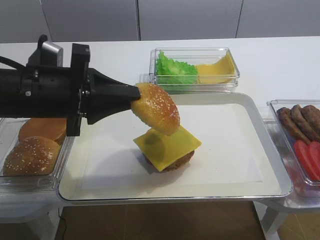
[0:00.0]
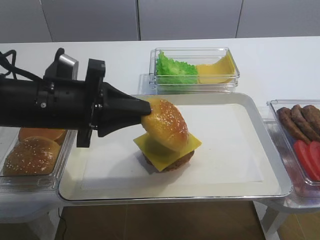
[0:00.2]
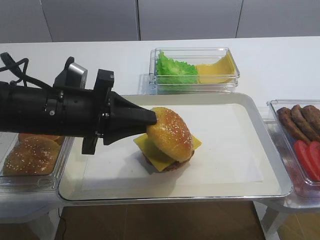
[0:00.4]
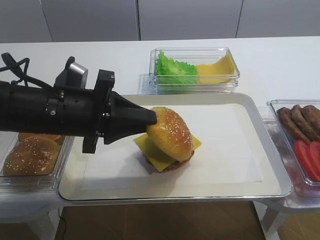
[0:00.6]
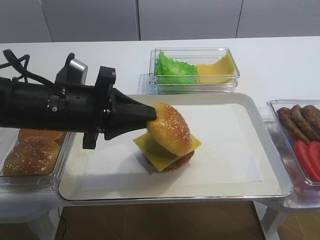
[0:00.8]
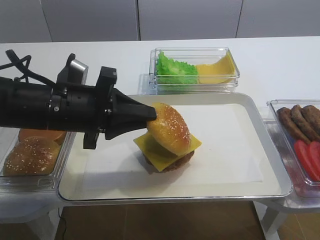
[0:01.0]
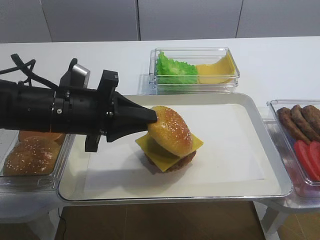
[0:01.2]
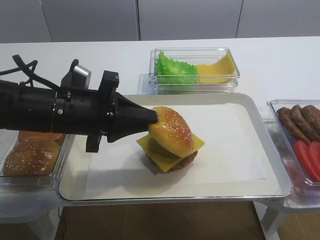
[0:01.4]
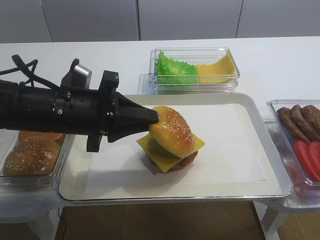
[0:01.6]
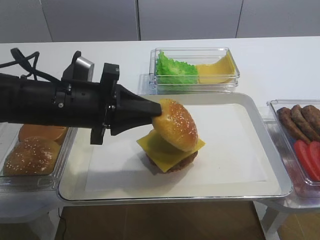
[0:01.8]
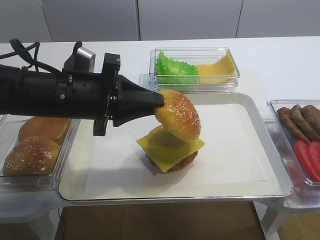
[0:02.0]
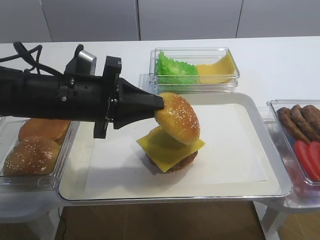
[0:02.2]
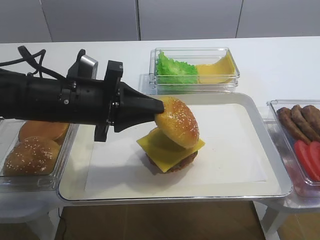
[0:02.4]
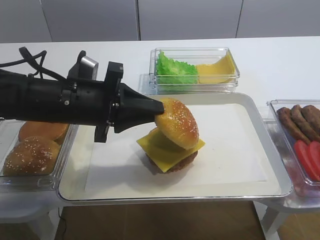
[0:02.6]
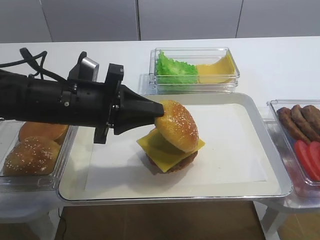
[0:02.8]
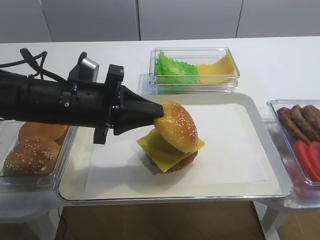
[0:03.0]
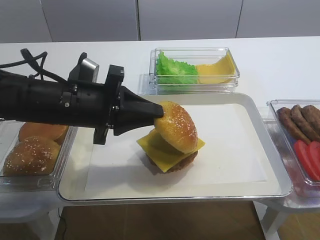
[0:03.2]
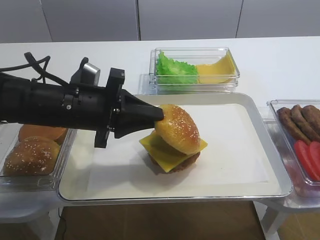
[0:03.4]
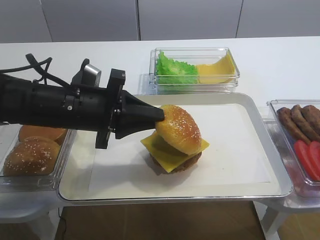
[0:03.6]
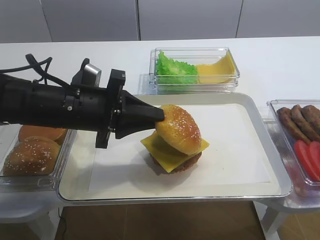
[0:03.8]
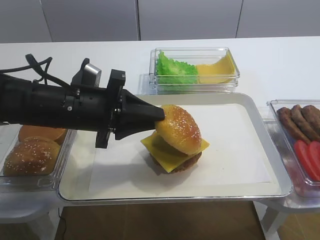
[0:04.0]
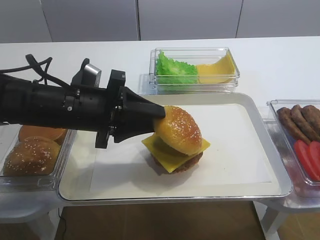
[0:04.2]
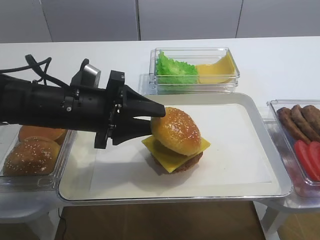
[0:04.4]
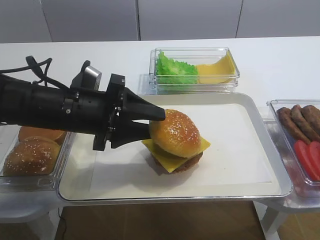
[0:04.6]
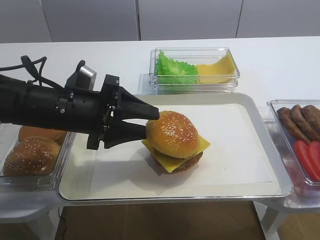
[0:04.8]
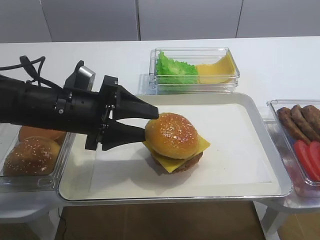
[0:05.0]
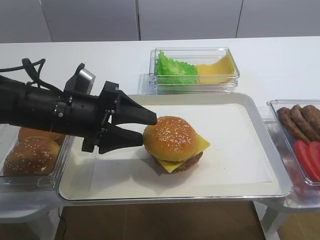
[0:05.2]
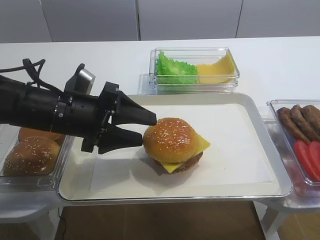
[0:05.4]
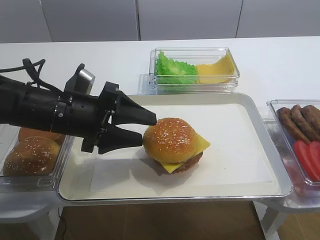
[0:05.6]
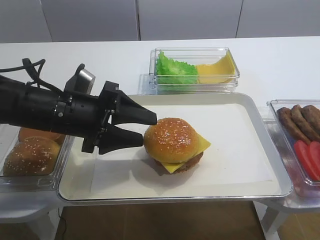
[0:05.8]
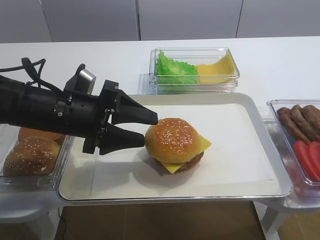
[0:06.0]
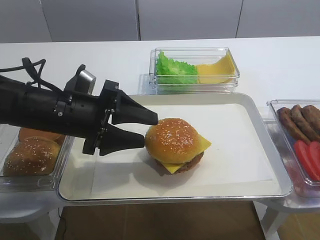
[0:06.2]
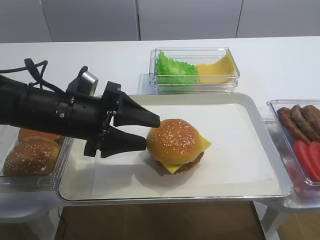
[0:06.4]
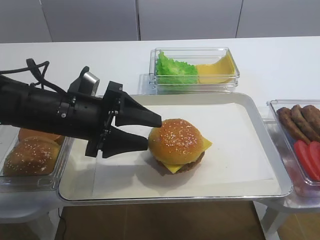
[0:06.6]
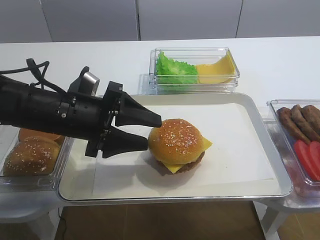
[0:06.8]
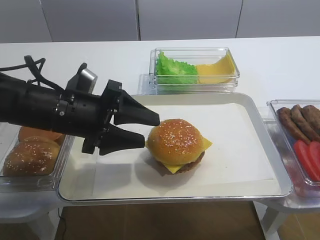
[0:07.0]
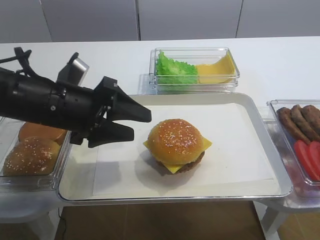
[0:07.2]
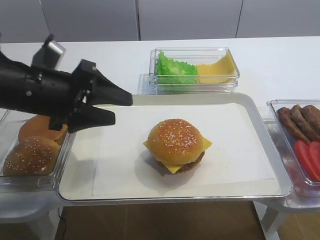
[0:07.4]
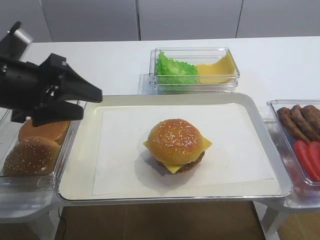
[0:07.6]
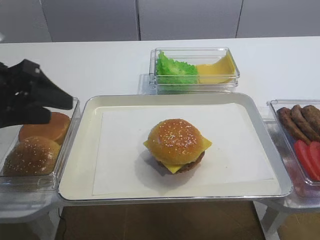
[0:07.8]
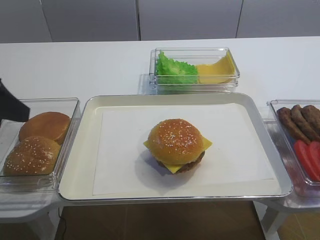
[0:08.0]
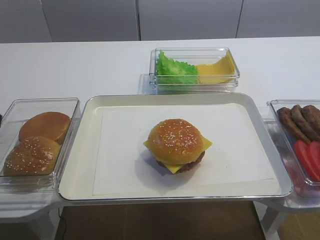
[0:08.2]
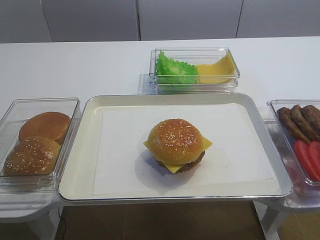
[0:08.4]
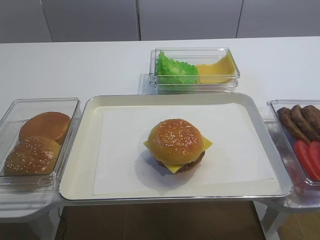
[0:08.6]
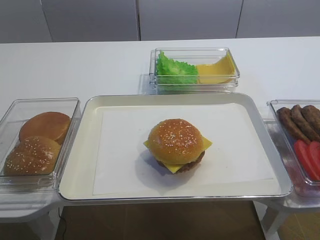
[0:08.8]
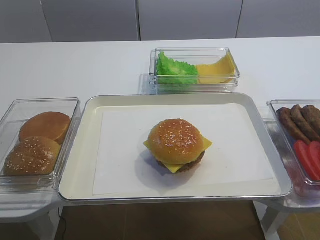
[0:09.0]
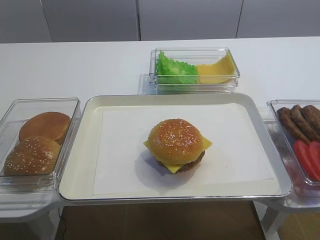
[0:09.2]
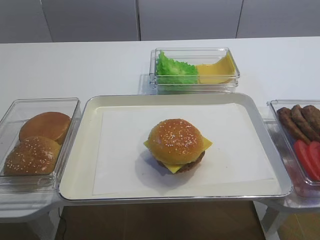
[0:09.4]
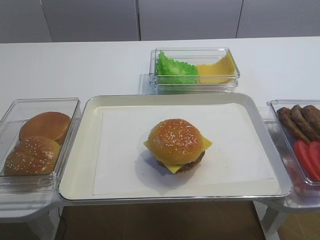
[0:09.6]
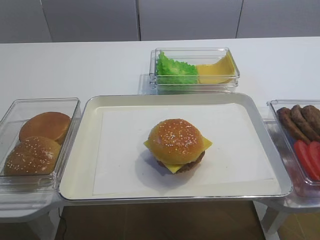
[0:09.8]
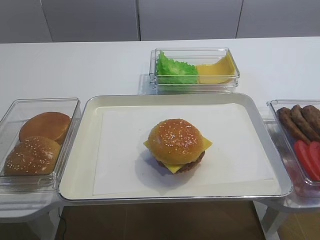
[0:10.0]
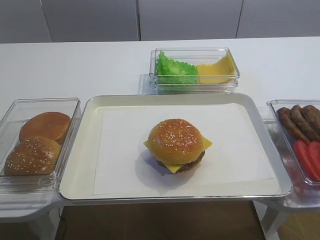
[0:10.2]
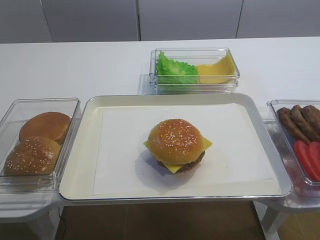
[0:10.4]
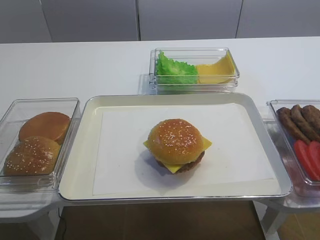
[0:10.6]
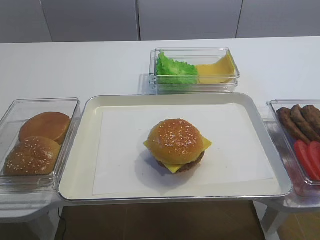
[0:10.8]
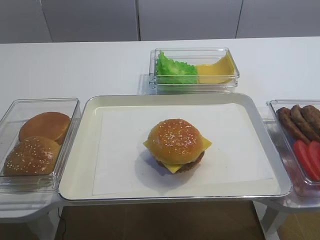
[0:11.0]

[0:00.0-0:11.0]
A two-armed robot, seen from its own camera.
Step, 0:00.0 to 0:07.2: Place the hamburger lid on the cheese slice with the left gripper.
0:00.0 to 0:03.2: There are only small adjustments of the grippers.
0:03.2 to 0:04.8: The left gripper opens.
0:04.8 to 0:06.2: Neither gripper changes place.
0:06.2 to 0:07.8: The left gripper travels to the left and upward by roughly 10 cm.
0:07.8 to 0:09.4: The left gripper shifts some 20 cm backward.
